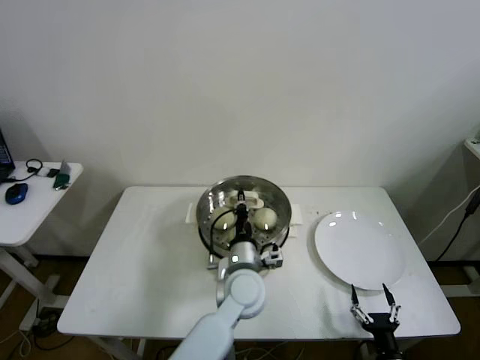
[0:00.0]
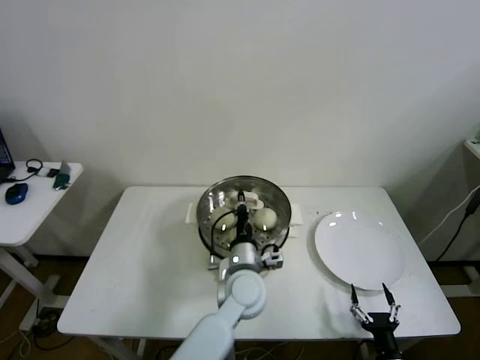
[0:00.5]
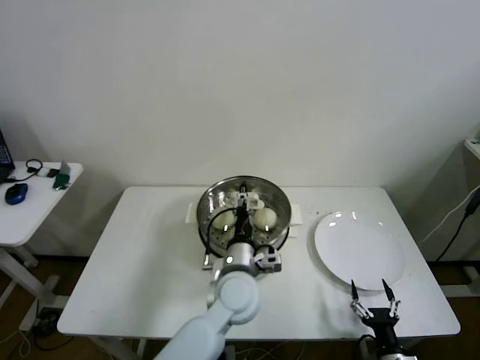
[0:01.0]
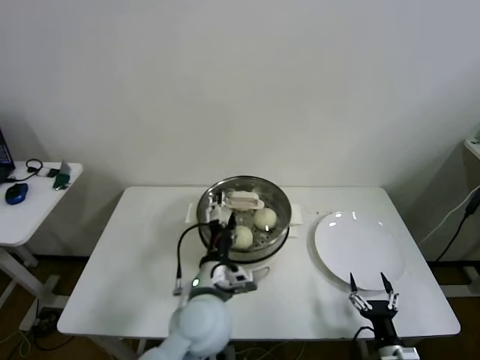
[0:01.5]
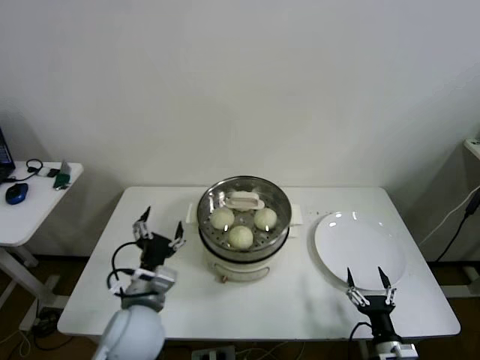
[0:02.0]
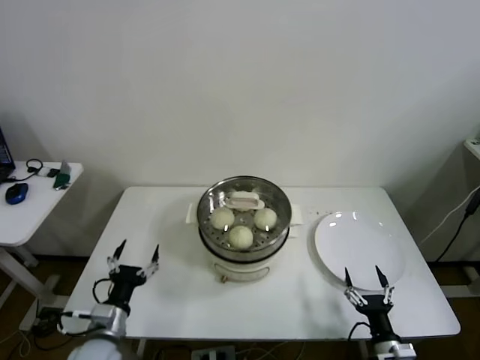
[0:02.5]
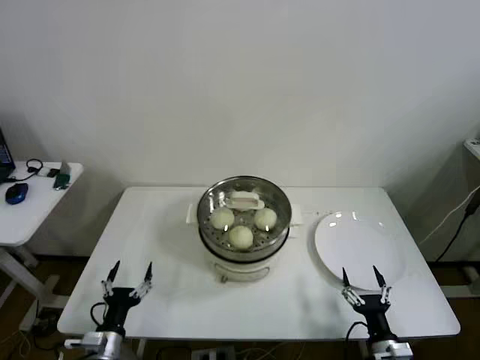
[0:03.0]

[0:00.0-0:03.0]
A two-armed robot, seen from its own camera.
0:00.0 to 0:01.5: The left gripper moves backward and to the left, some 10 cm, and opens up.
0:01.5 to 0:03.0: The left gripper shifts roughly 30 cm to the left and downward.

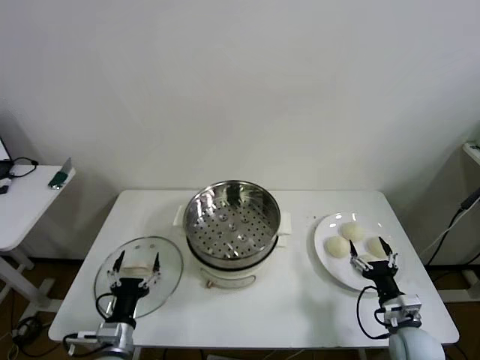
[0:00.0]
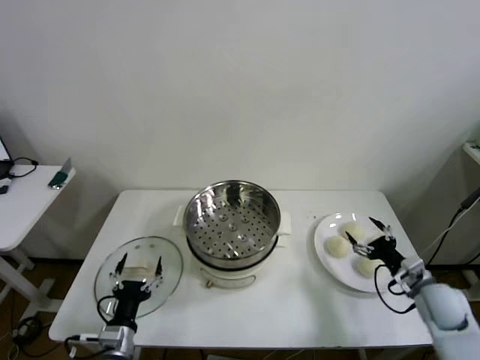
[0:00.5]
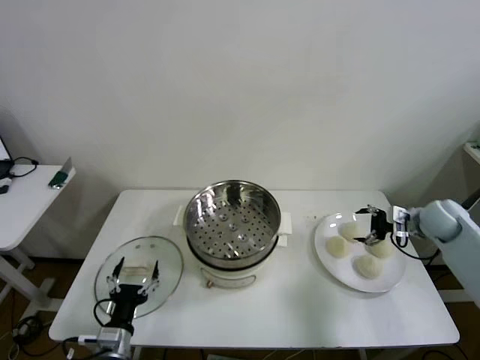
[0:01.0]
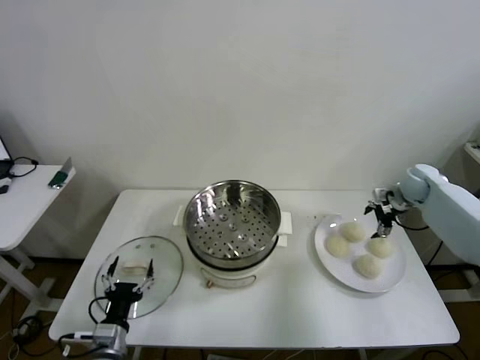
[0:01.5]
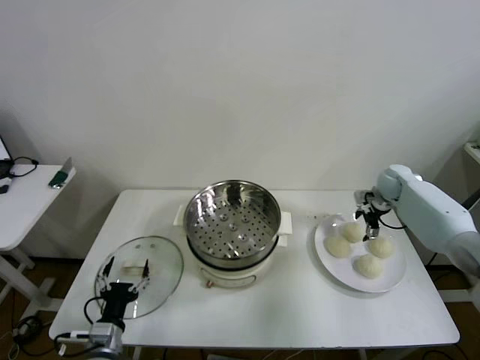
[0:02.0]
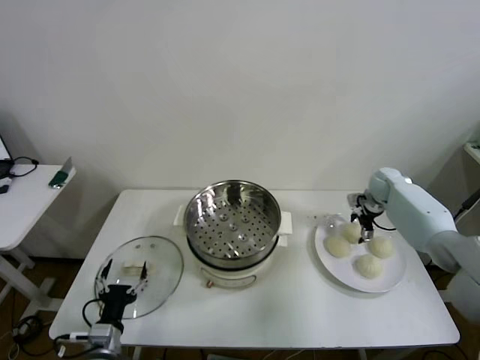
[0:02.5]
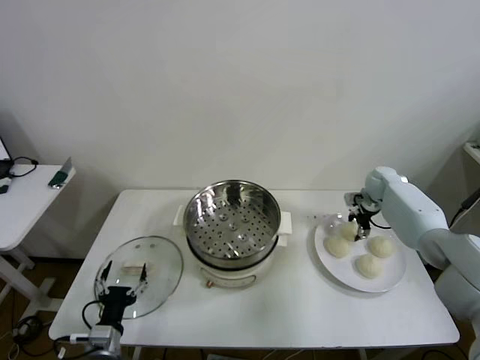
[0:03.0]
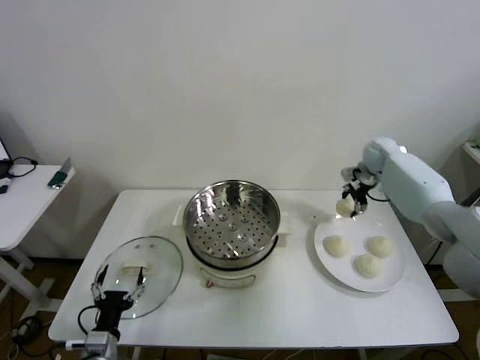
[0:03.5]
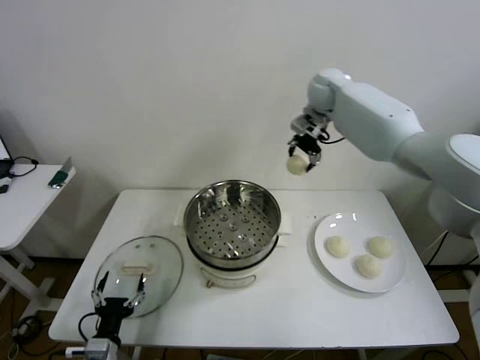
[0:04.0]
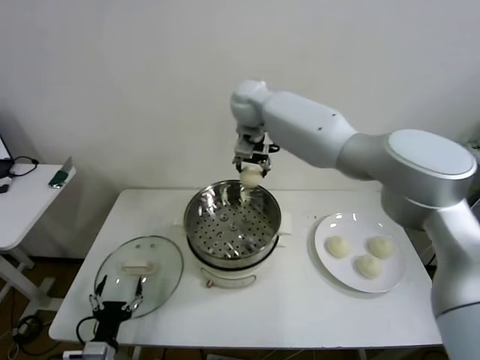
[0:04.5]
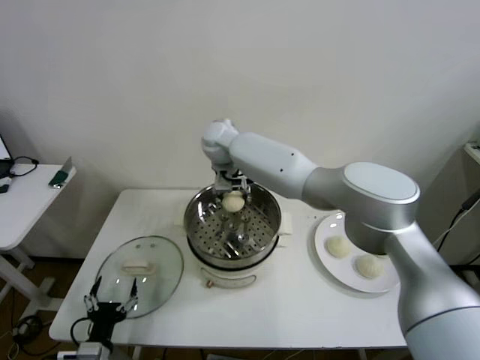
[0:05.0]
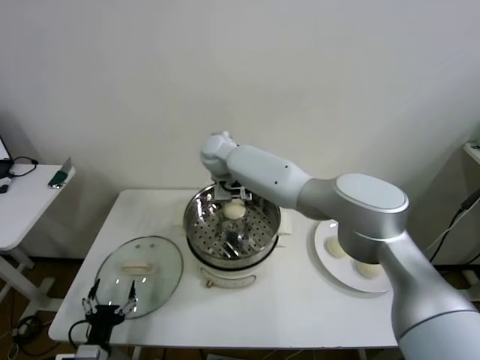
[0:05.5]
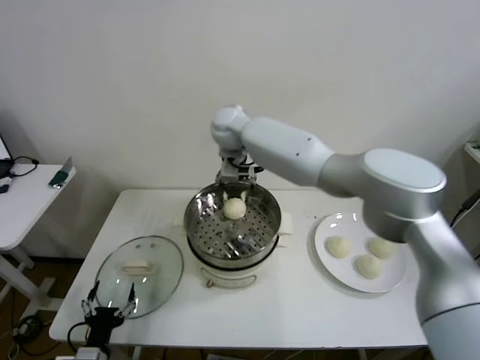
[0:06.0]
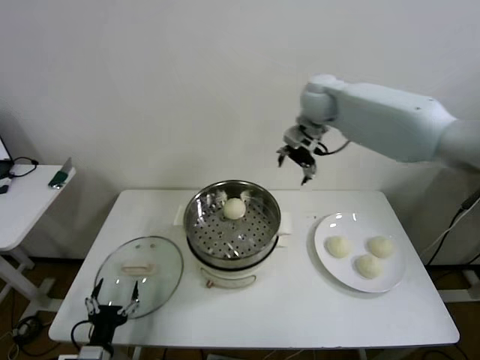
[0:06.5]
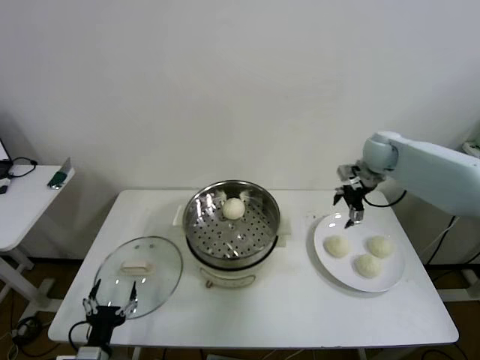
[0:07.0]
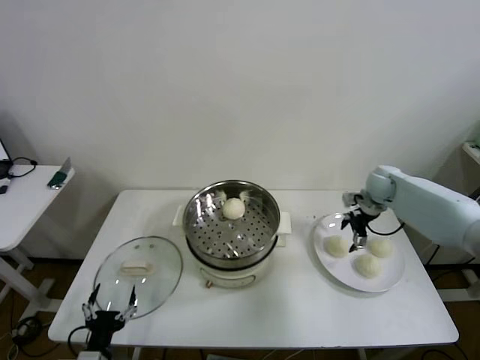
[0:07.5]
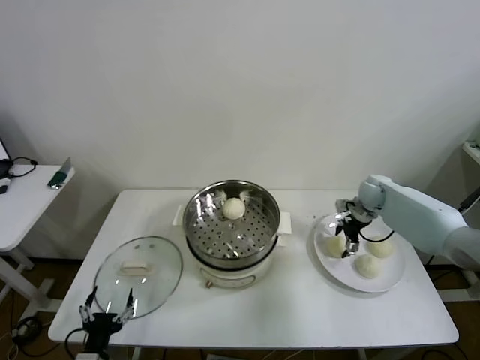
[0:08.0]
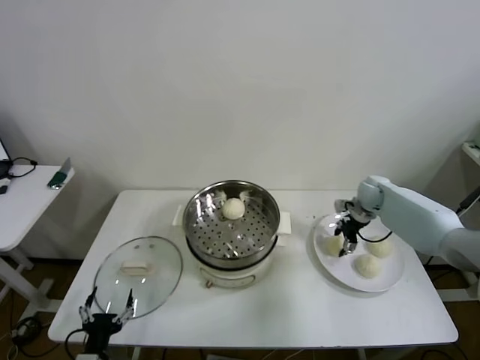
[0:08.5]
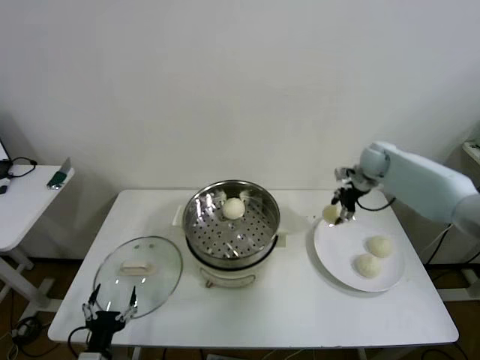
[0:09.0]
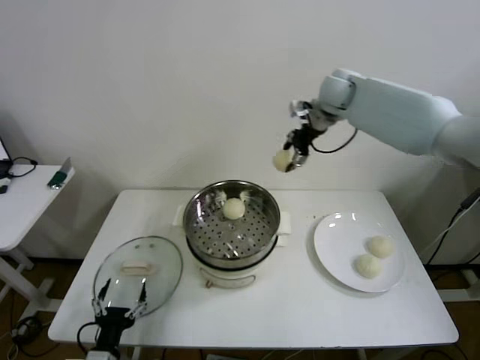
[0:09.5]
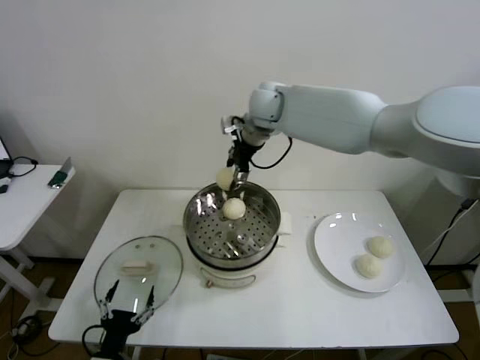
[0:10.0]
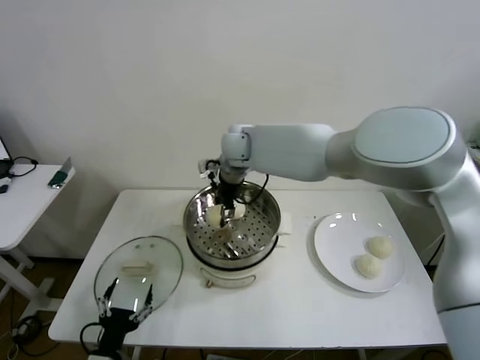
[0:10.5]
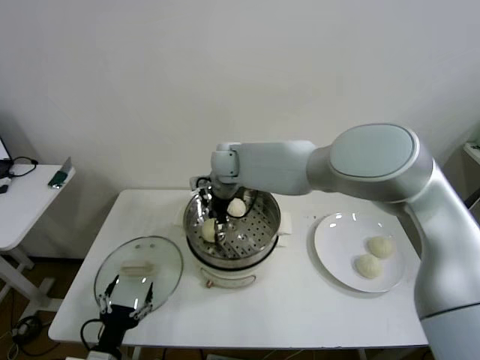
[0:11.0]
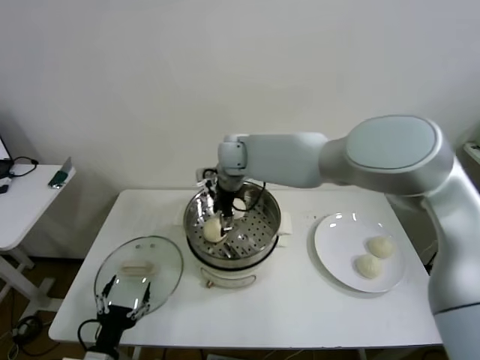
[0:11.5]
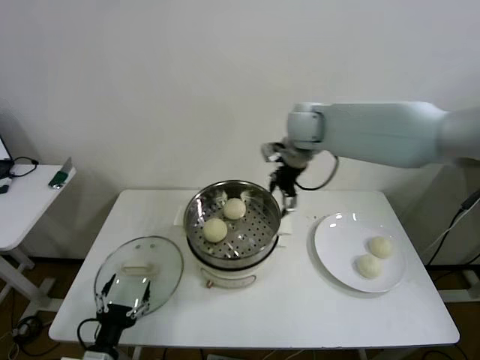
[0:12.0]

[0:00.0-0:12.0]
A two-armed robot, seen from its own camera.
Step, 0:00.0 to 0:02.5: Grasp the baozi in the plate with right gripper.
Step, 0:03.0 to 0:05.0: Place the baozi on the steamer with right gripper.
Step, 0:05.5 to 0:08.0: Grasp the baozi in the plate with right gripper.
Step, 0:08.5 to 0:11.0: Place the baozi on the steamer with right gripper.
0:02.0 to 0:04.0: The right gripper moves to the left and upward, about 40 cm, and closes.
0:04.0 to 0:06.0: The right gripper travels to the left by about 15 cm, and opens its fingers.
0:06.0 to 0:08.0: The right gripper shifts some 40 cm to the right and downward.
0:08.0 to 0:10.0: The right gripper goes approximately 40 cm to the left and upward, and closes its fingers.
0:10.0 to 0:12.0: The right gripper heads to the right, covering some 15 cm, and opens its fingers.

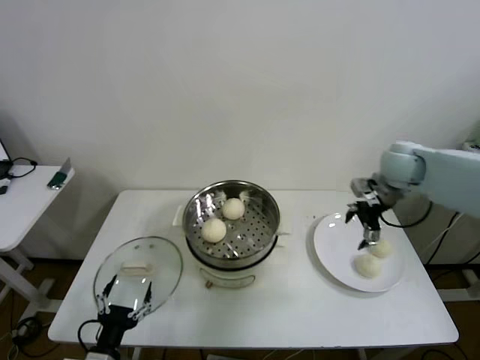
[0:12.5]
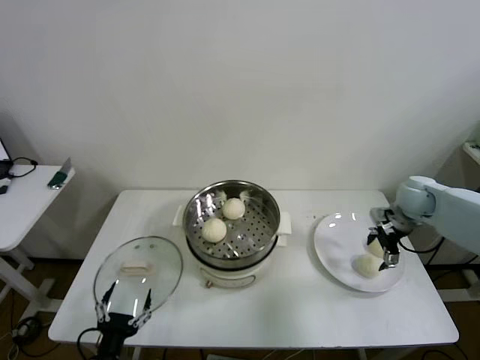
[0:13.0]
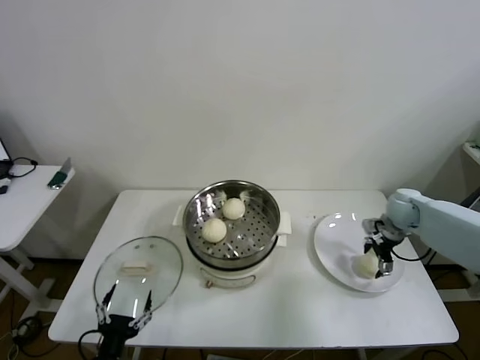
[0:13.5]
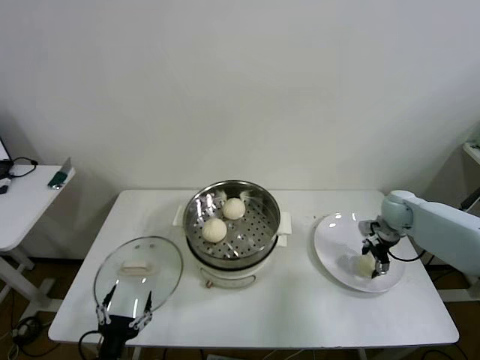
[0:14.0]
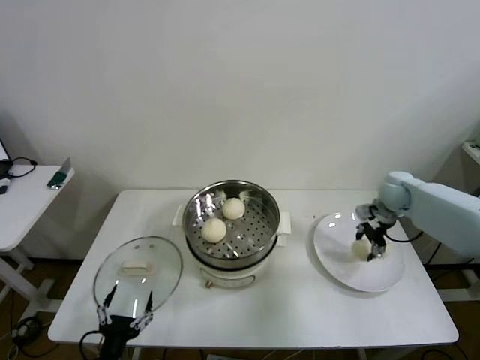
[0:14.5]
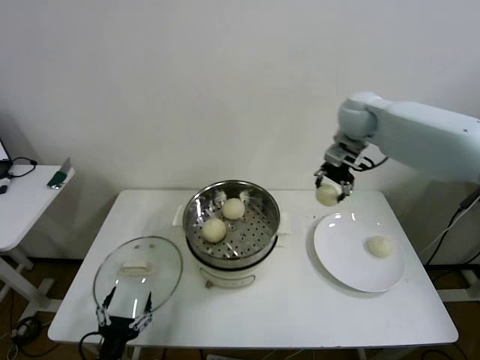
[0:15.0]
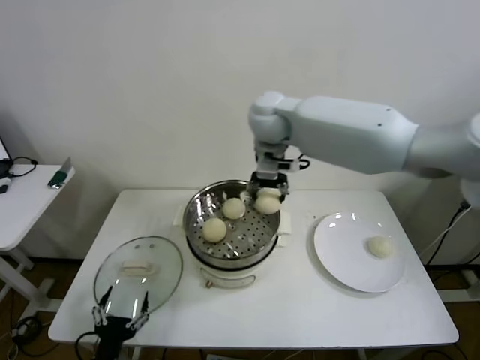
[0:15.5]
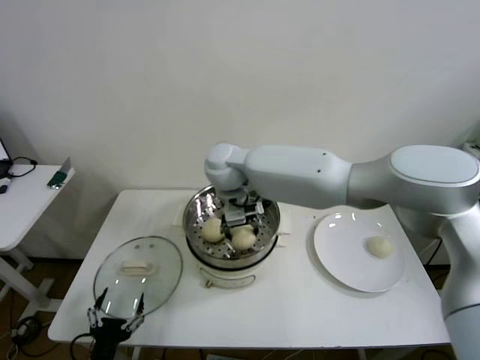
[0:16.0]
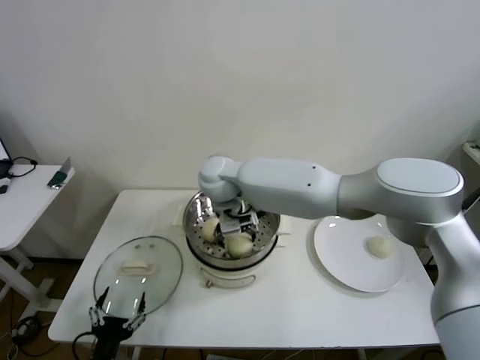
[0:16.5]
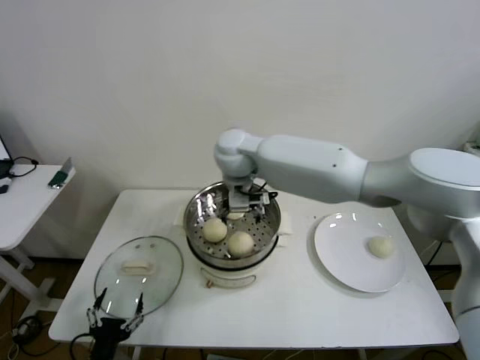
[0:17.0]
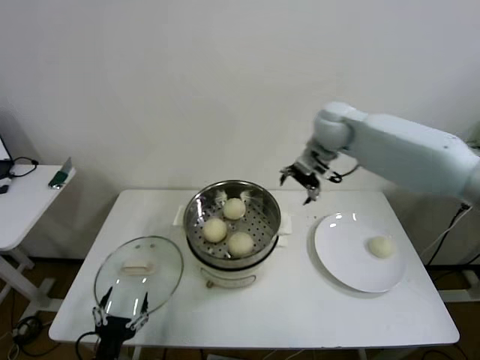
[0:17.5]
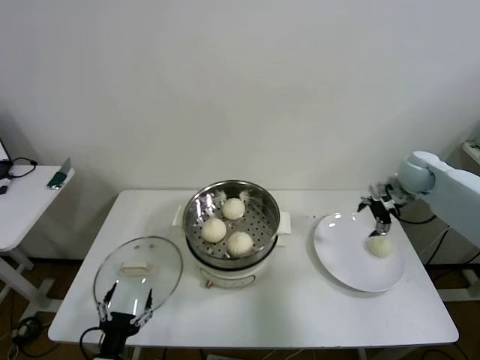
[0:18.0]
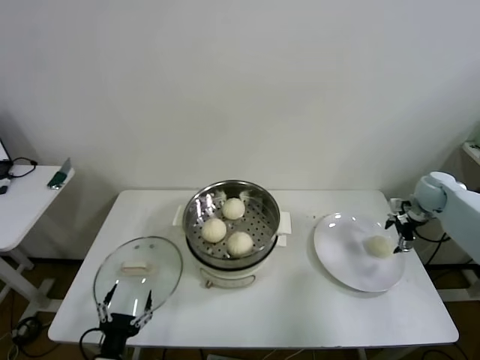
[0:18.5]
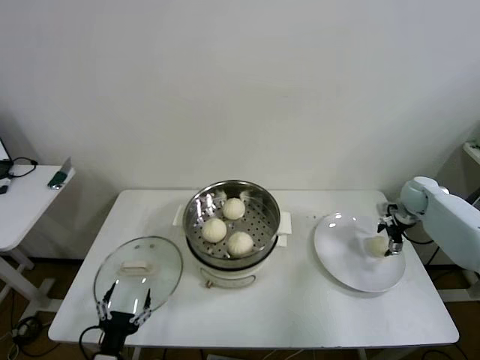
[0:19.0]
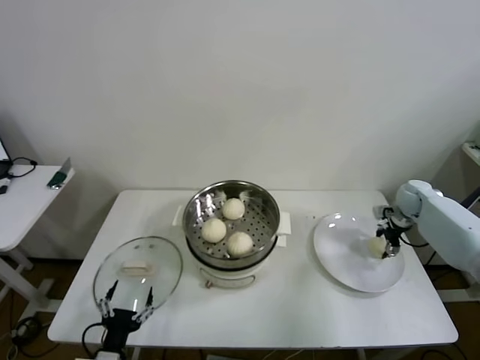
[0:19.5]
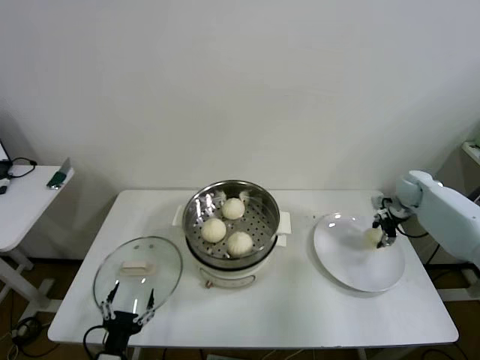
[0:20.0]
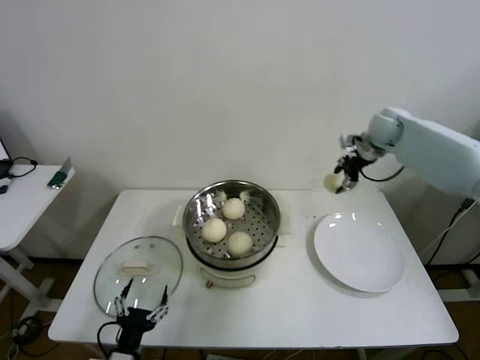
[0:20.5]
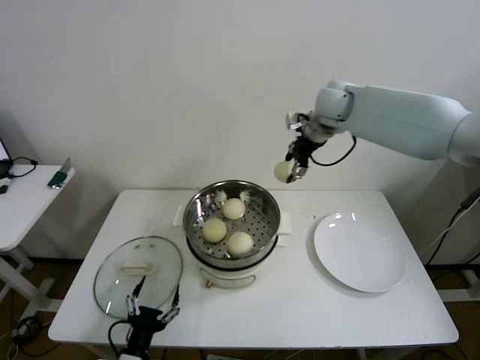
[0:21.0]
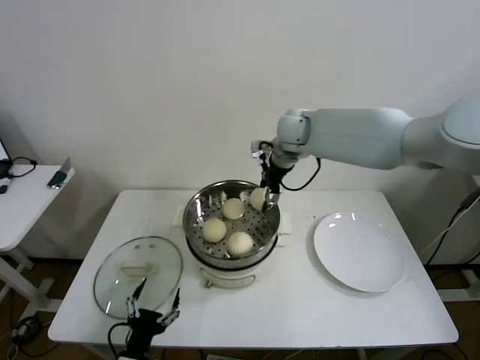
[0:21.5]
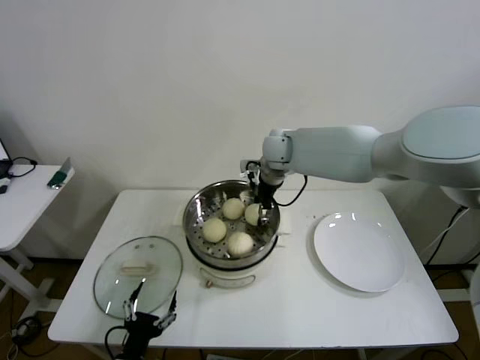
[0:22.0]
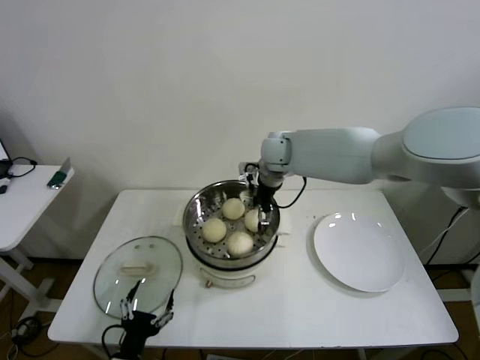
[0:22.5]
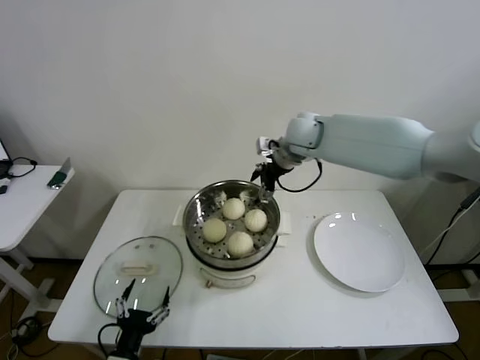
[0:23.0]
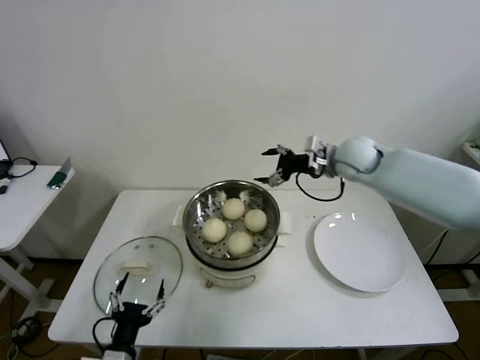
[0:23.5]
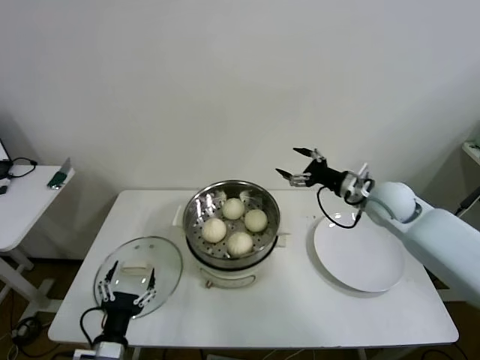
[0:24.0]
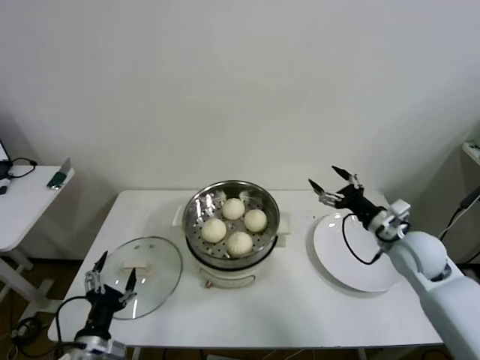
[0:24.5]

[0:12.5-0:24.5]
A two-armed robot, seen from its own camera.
Step, 0:14.0 to 0:16.0: Place the baozi on the steamer with right gripper.
Step, 0:16.5 to 0:19.0: Grasp the baozi in the plate with right gripper.
Step, 0:19.5 to 0:22.0: Place the baozi on the steamer with right gripper.
0:12.5 to 0:14.5: The right gripper moves downward, about 10 cm, and closes.
0:14.5 to 0:16.5: The right gripper travels to the left by roughly 40 cm, and opens.
0:16.5 to 0:18.5: The right gripper shifts roughly 50 cm to the right.
0:18.5 to 0:20.5: The right gripper travels upward, to the left and forward by some 20 cm, and closes up.
0:20.5 to 0:22.5: The right gripper goes approximately 25 cm to the left, and opens.
0:22.5 to 0:24.5: The right gripper shifts about 35 cm to the right, backward and downward, while the left gripper is displaced upward by about 5 cm.
